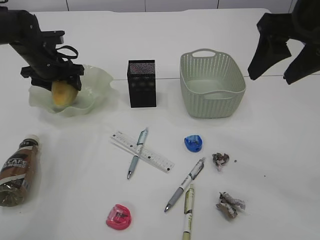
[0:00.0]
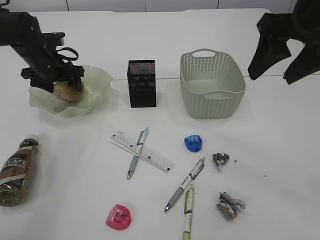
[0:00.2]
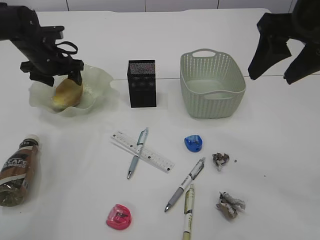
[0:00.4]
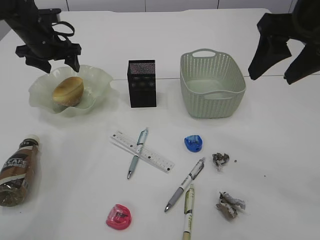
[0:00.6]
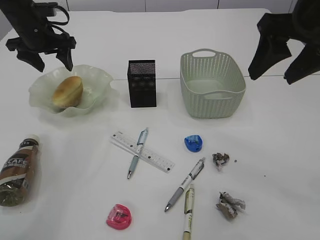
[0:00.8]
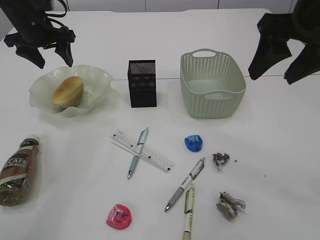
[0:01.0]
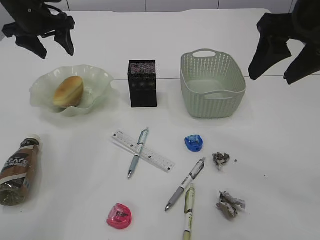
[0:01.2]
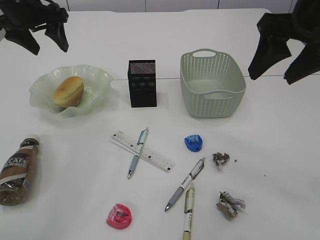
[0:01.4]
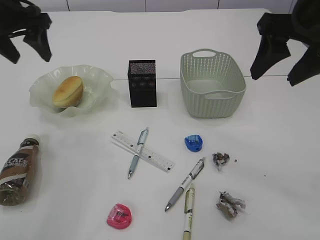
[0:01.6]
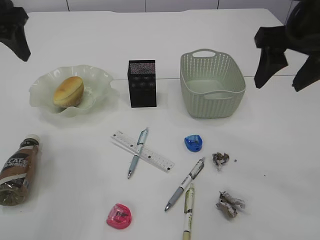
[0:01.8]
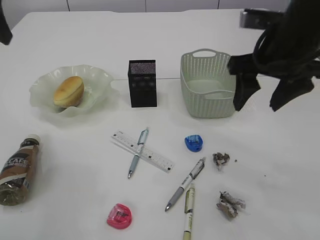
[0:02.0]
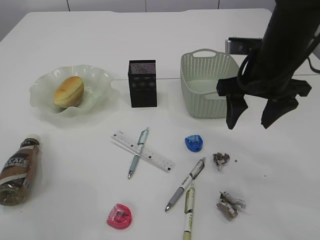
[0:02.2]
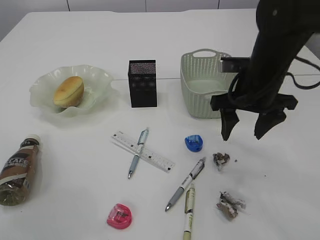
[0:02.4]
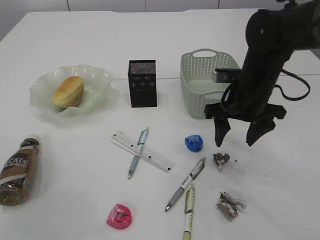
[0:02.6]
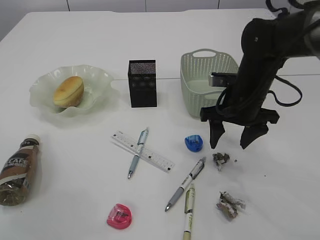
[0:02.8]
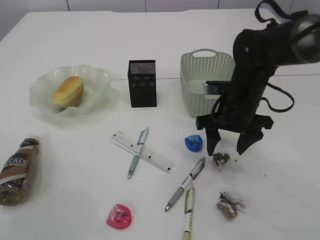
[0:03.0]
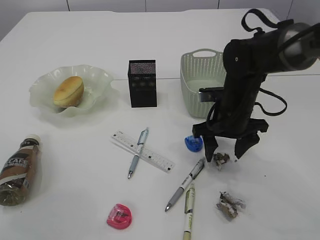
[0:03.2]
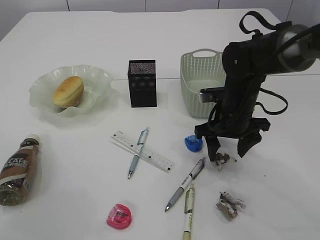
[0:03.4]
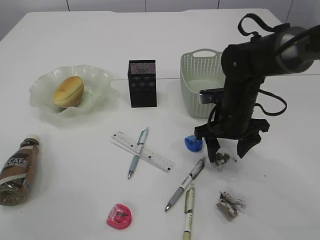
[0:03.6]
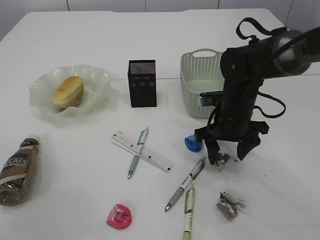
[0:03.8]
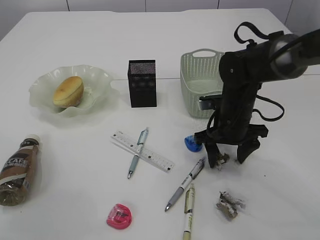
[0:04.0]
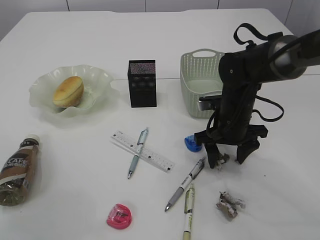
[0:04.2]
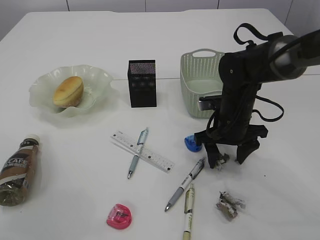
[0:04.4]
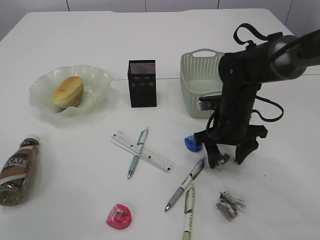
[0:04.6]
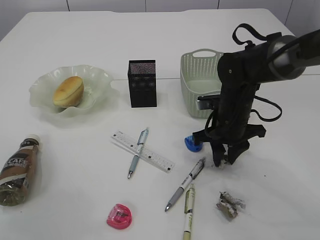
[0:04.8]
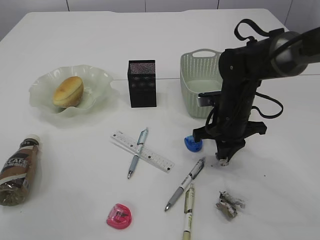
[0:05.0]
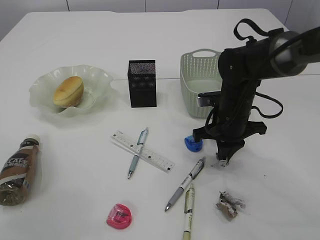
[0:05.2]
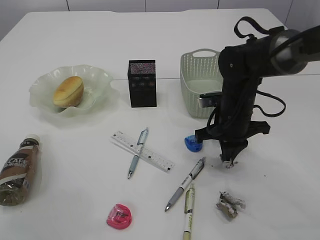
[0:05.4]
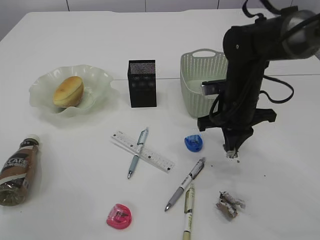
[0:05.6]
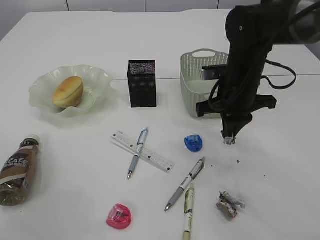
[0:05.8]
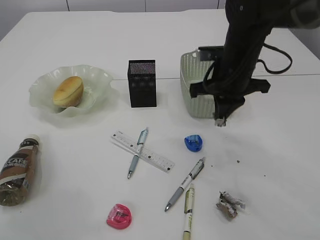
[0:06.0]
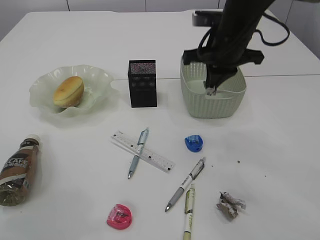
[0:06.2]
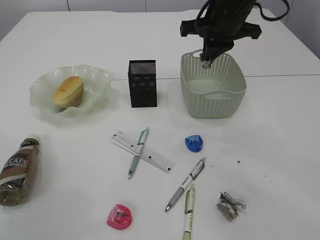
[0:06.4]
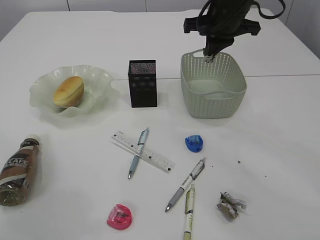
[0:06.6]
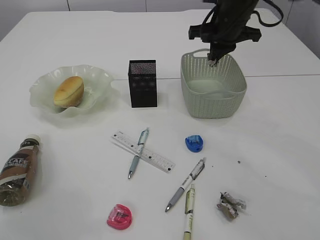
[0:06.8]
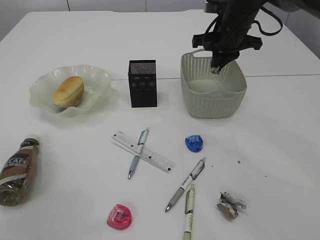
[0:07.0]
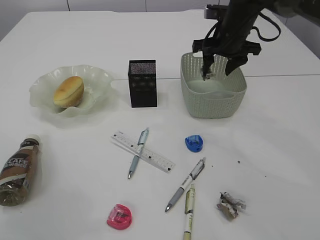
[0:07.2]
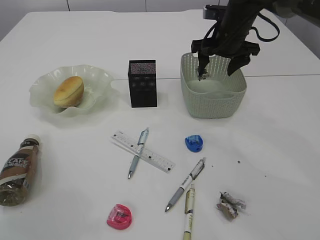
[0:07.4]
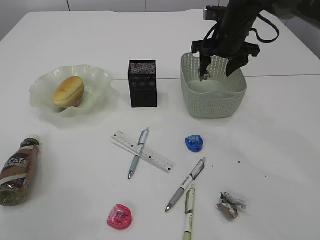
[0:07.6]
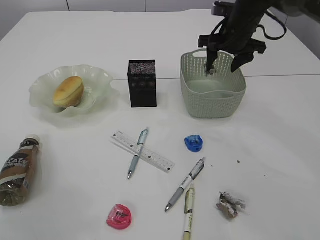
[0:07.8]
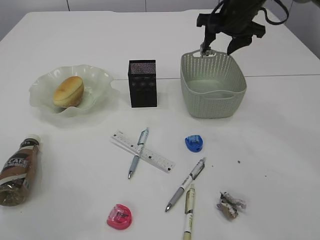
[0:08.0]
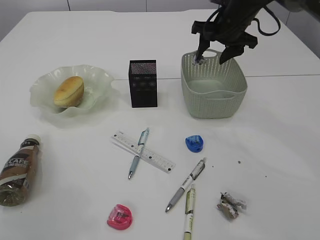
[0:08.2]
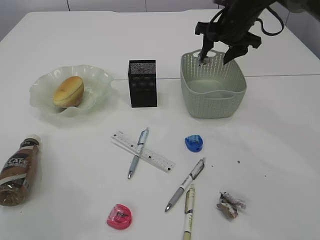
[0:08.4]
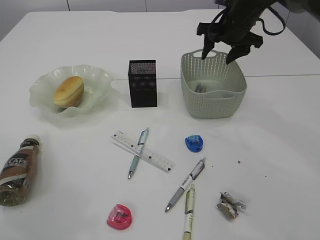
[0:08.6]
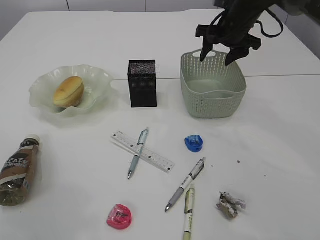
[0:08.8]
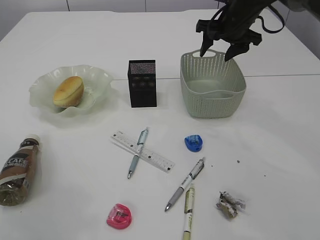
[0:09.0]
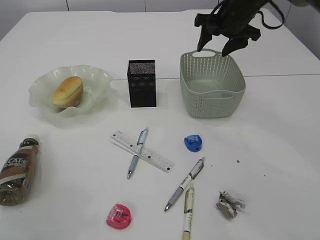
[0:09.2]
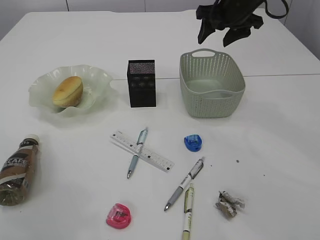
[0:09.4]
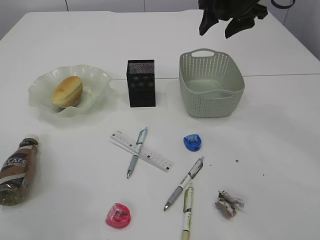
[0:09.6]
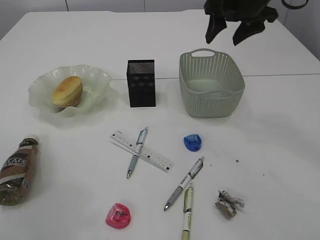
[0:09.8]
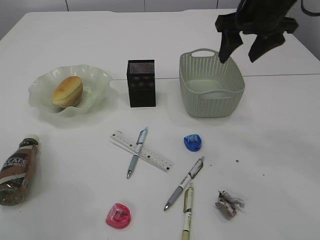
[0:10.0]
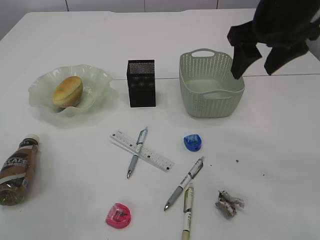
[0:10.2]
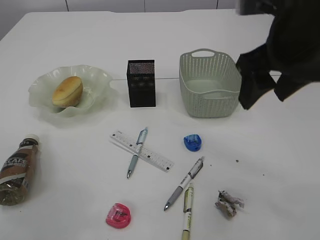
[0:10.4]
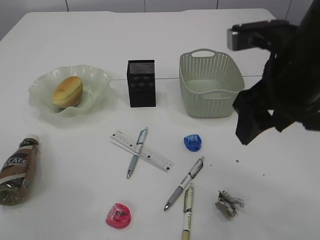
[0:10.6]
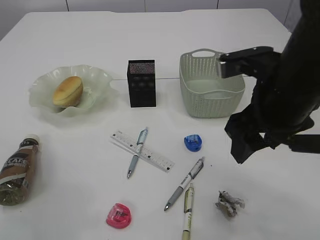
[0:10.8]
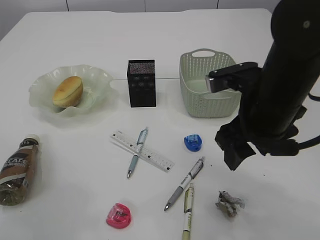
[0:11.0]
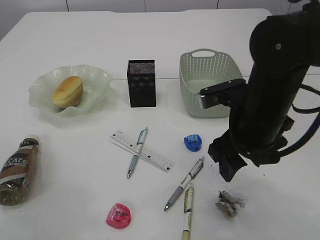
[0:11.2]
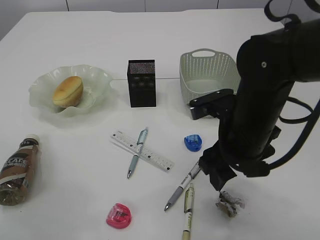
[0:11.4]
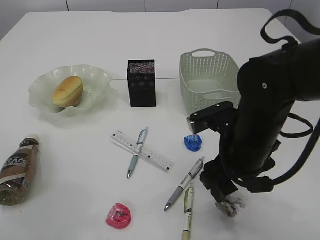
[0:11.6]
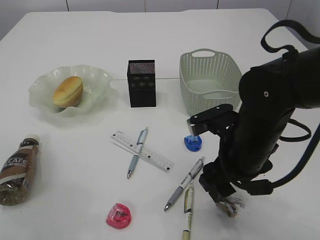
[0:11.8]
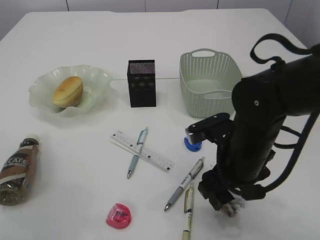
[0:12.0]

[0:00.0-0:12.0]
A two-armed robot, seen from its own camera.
Step, 0:00.8 to 0:05.4: Pick up the waste paper.
Step, 0:05.6 to 0:08.6: Place the waste paper in the basket.
0:00.0 to 0:01.6: The left gripper heads upward and backward, covering approximately 15 cm.
0:01.6 to 0:03.0: The left gripper moves backward and upward, some 20 cm, while the right gripper shifts approximately 20 cm downward.
0:03.0 to 0:04.4: The grippers move only a little.
0:04.4 to 0:06.0: The right gripper goes some 10 cm upward, and closes its fingers.
0:06.0 to 0:07.6: The right gripper heads forward, covering roughly 10 cm, and opens.
0:07.6 to 0:09.0: The grippers make only small movements.
0:09.0 to 0:10.4: The right gripper shifts roughly 20 cm backward.
0:10.4 to 0:12.0: The right gripper goes roughly 15 cm downward.

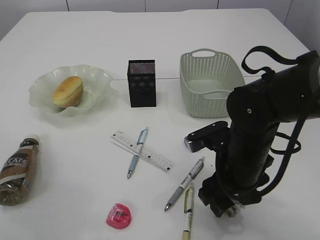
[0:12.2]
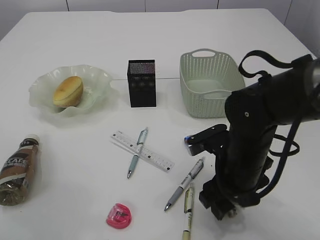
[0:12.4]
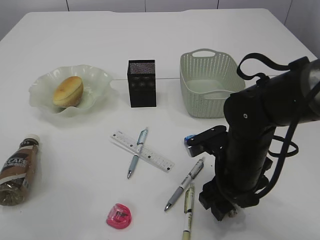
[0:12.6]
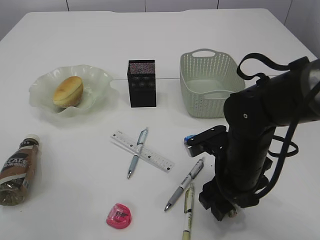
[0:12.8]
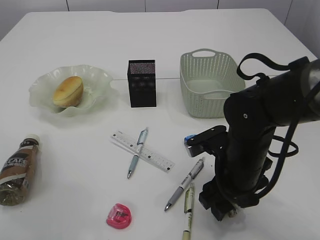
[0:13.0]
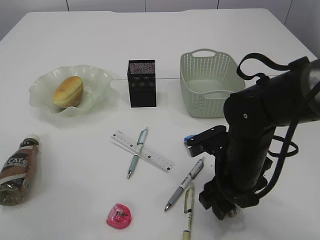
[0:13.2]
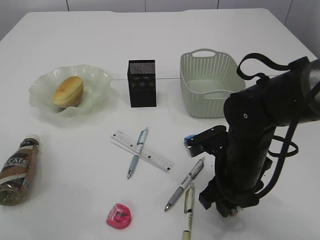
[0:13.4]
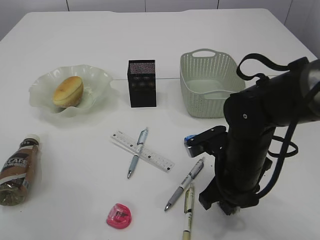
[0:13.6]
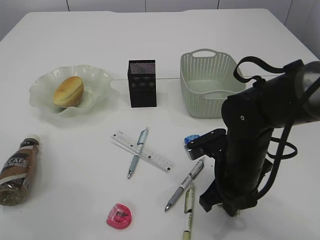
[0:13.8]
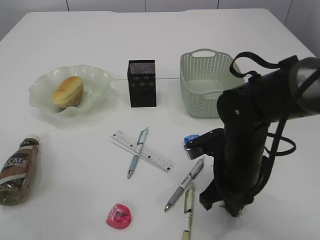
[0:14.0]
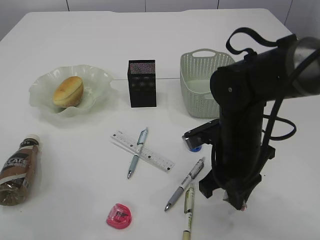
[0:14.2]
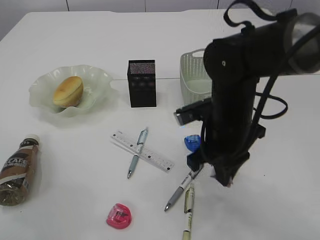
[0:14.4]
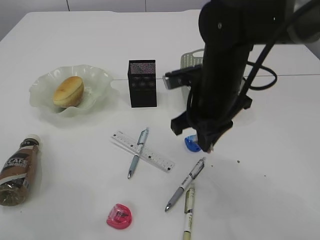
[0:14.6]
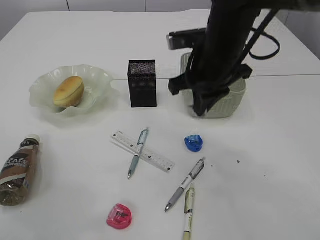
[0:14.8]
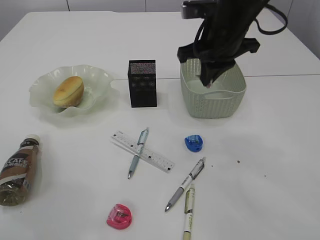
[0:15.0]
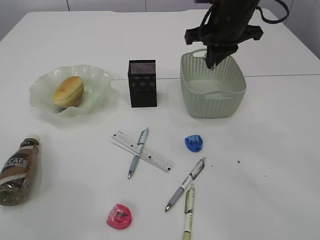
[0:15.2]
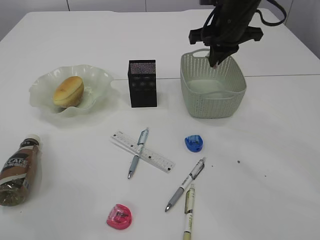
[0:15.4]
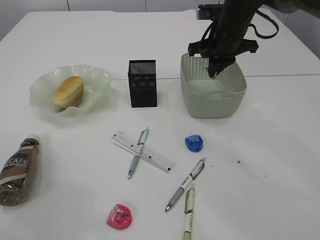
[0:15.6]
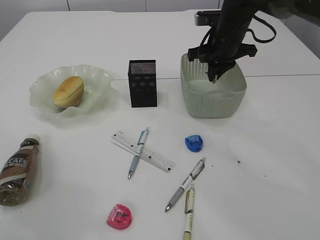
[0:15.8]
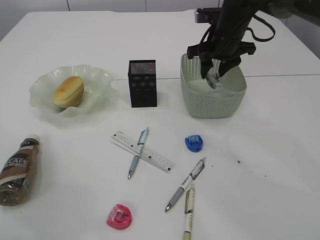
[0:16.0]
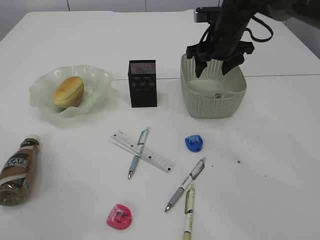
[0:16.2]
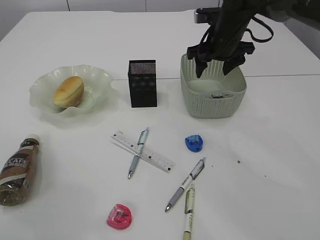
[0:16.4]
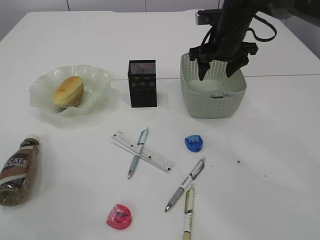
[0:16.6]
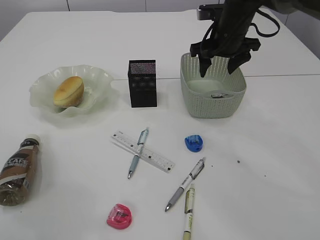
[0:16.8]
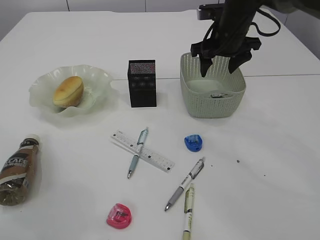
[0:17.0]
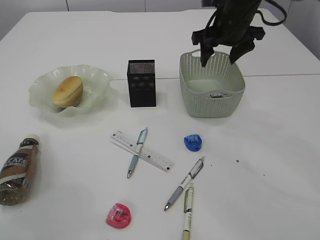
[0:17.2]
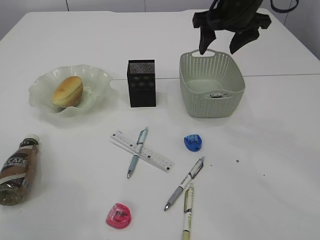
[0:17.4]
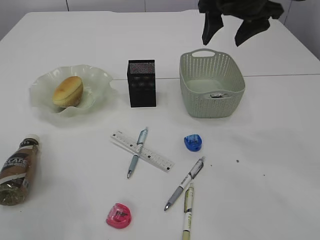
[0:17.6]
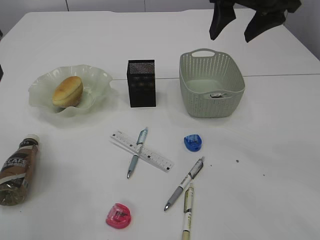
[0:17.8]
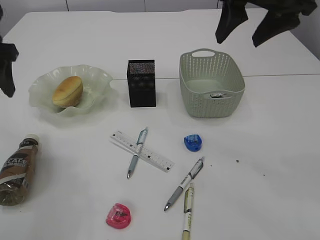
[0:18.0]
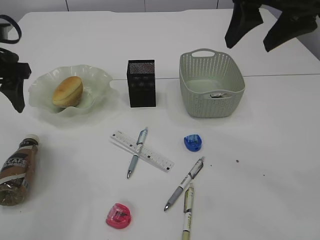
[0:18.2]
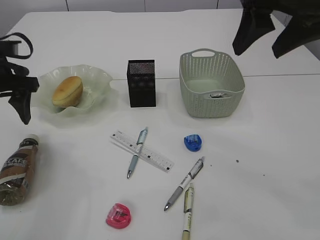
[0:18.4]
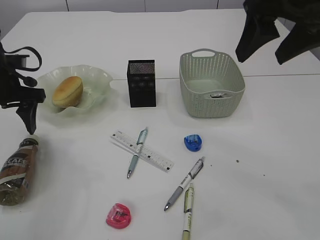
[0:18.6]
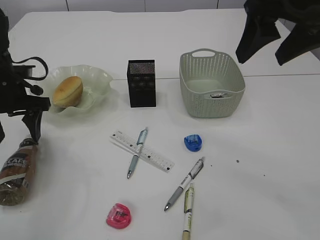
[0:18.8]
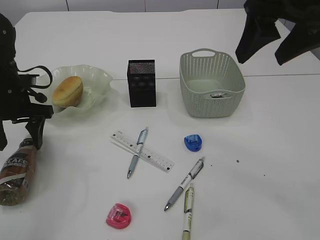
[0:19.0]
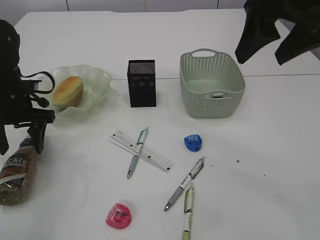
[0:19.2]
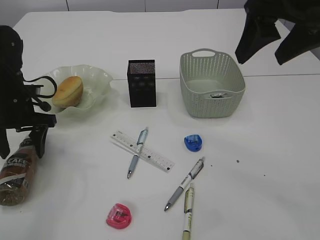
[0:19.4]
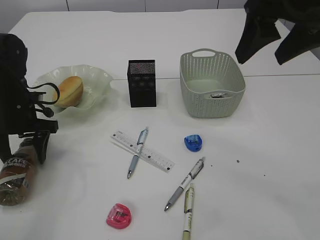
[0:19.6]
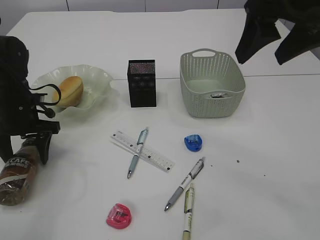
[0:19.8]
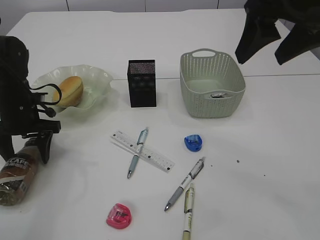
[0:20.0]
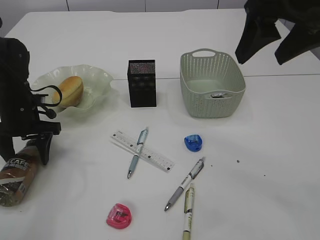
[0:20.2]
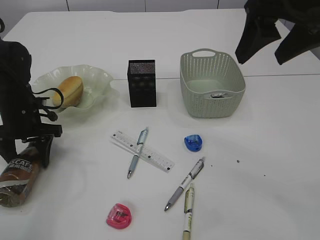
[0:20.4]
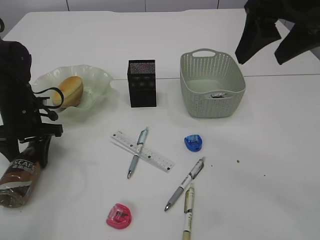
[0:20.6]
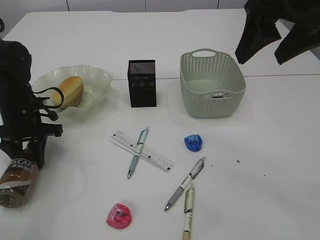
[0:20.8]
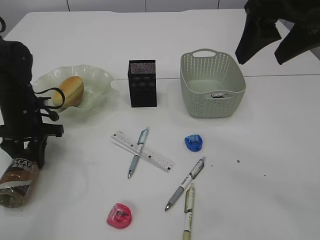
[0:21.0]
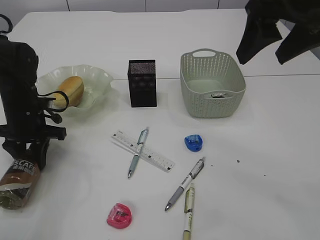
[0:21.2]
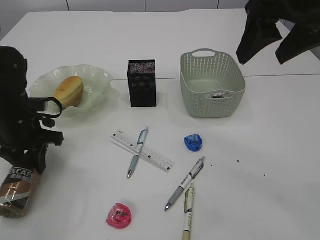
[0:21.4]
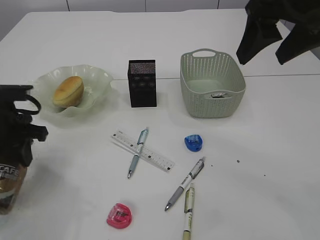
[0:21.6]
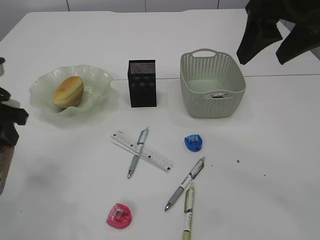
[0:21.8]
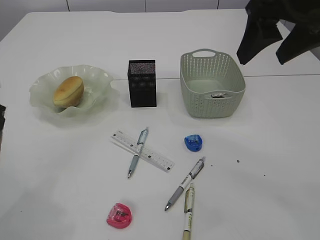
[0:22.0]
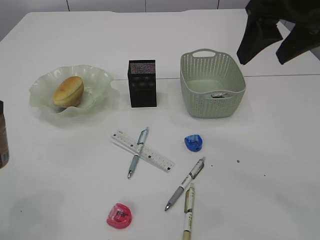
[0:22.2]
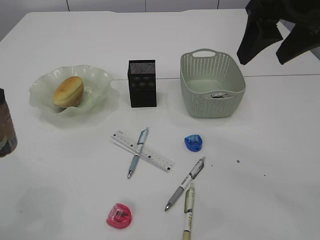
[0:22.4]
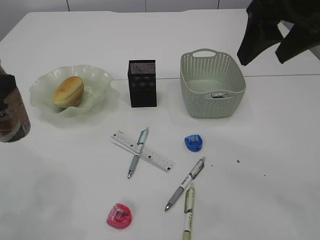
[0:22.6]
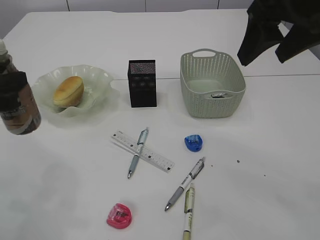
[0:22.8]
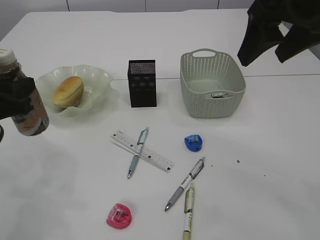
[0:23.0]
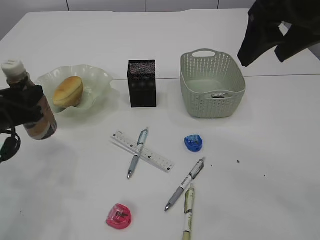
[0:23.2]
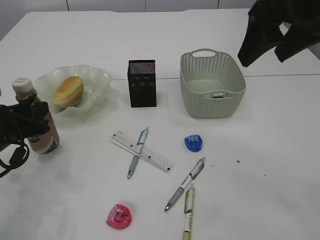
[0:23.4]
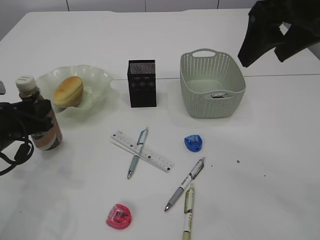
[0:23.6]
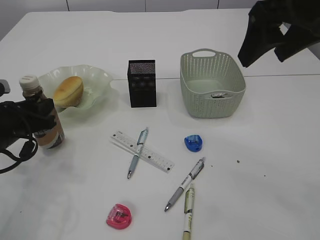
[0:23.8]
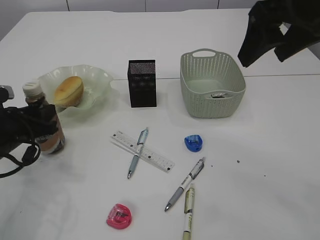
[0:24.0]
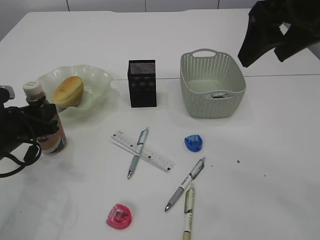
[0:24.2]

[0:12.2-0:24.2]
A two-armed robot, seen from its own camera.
Step, 0:12.2 to 0:14.2: Pick up the plastic.
Step, 0:14.4 to 0:16.2: Place the plastic in the basket.
Step, 0:16.4 to 0:21.6: Pick up the pen with left arm.
0:12.2 to 0:13.8: The right gripper closes its fingers.
0:13.8 to 0:15.2: The right gripper travels upward and forward by about 25 cm.
0:15.2 to 0:16.6: The right gripper heads downward and forward, covering roughly 10 cm, and opens.
0:16.6 to 0:18.2: The right gripper travels backward and upward by approximately 20 cm, while the left gripper travels downward and forward by about 15 cm.
0:18.2 to 0:19.8: The left gripper travels downward by about 15 cm.
0:19.8 to 0:21.2: The left gripper closes its fingers.
0:21.2 to 0:22.6: The left gripper heads backward and upward, covering some 20 cm.
0:22.6 to 0:24.2: The left gripper goes approximately 15 cm downward and forward.
